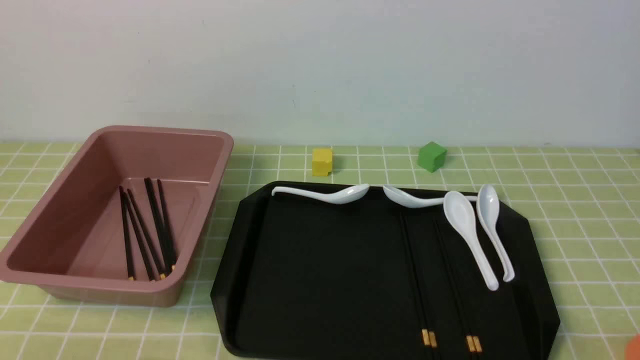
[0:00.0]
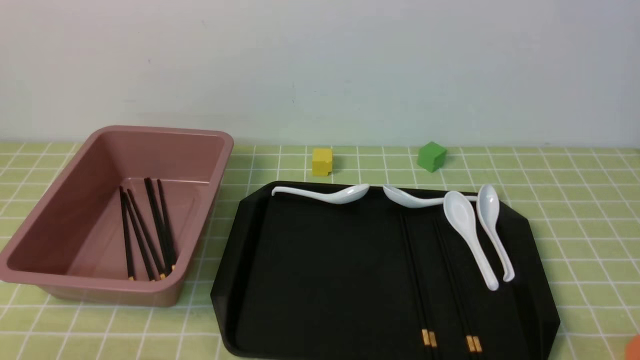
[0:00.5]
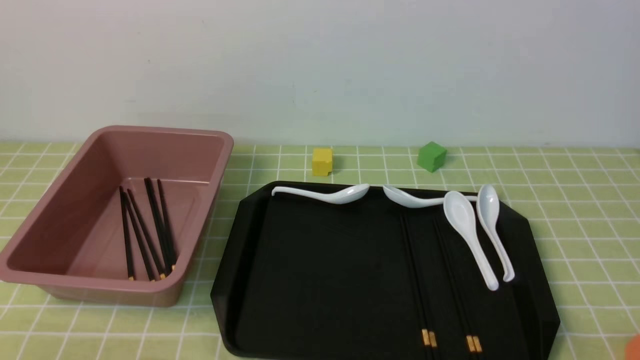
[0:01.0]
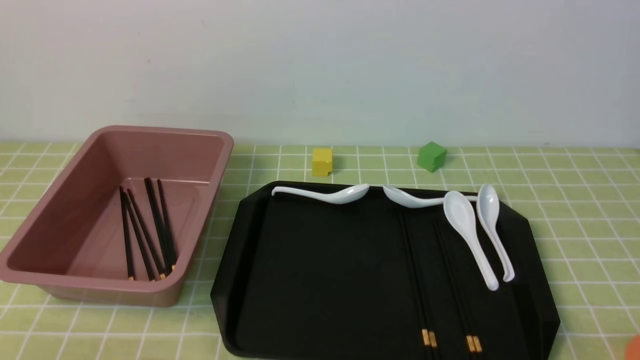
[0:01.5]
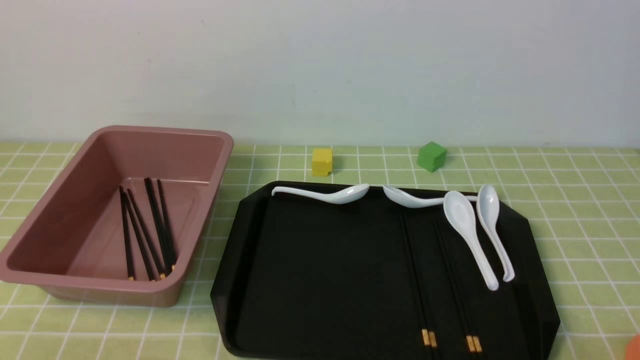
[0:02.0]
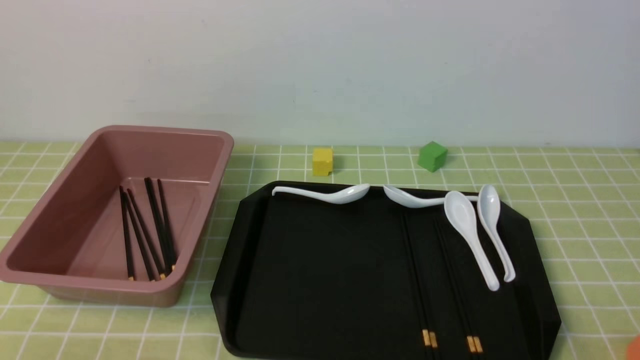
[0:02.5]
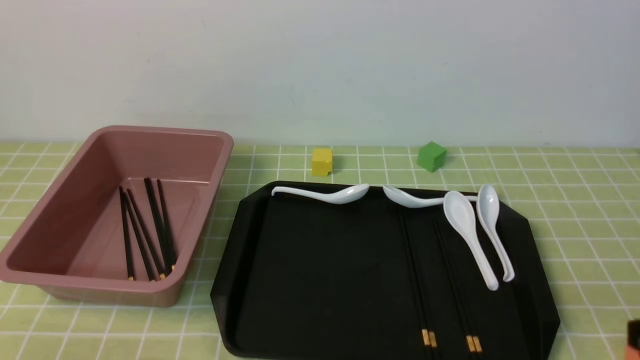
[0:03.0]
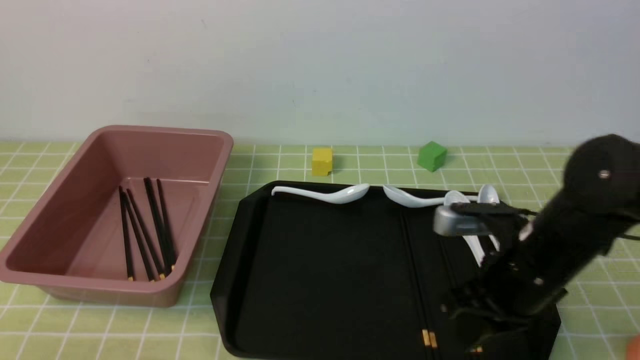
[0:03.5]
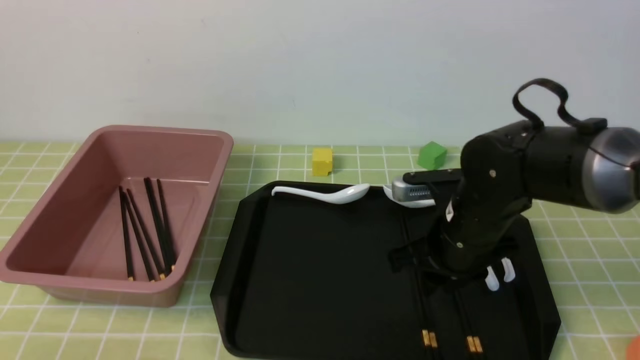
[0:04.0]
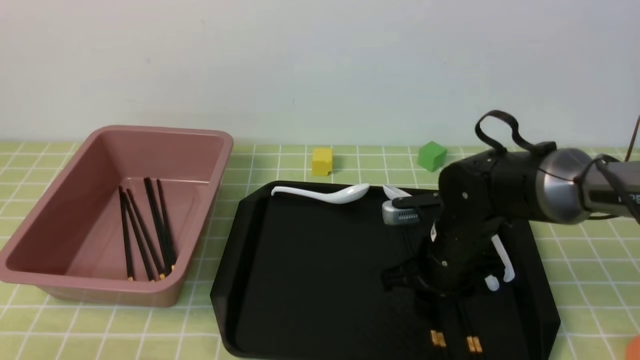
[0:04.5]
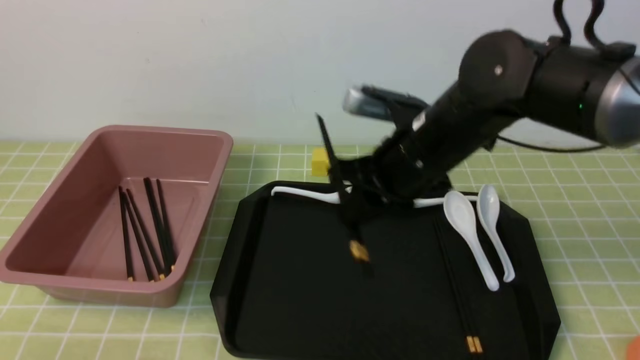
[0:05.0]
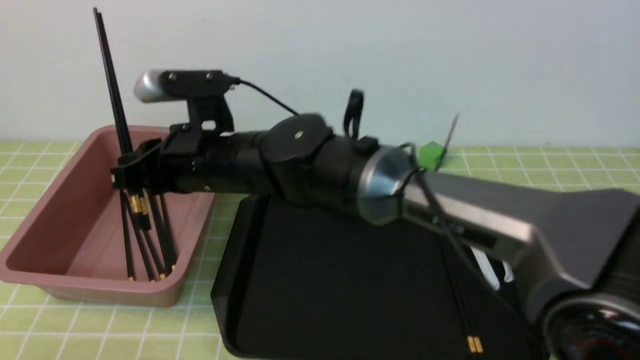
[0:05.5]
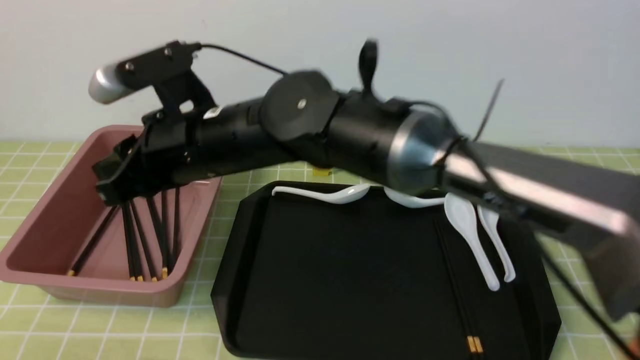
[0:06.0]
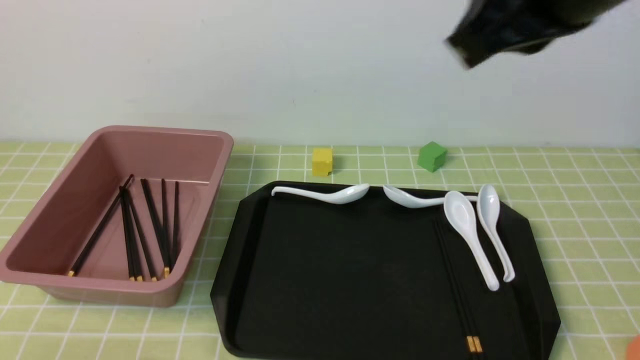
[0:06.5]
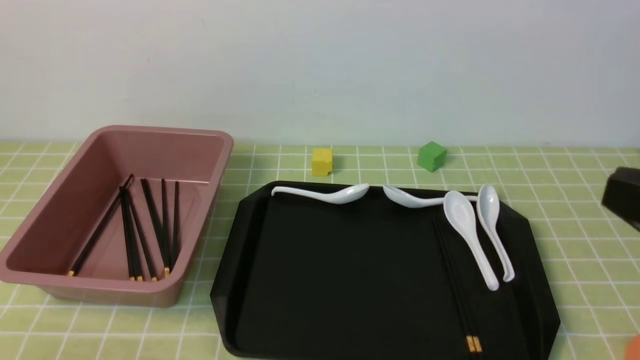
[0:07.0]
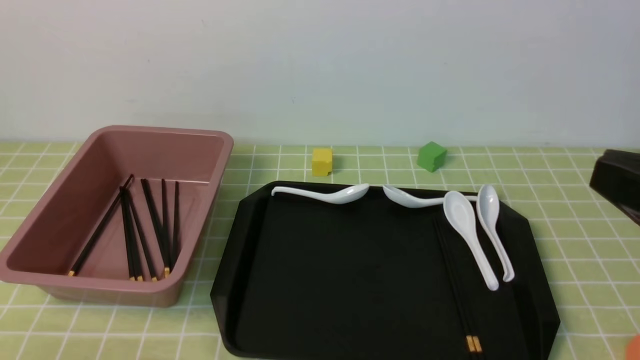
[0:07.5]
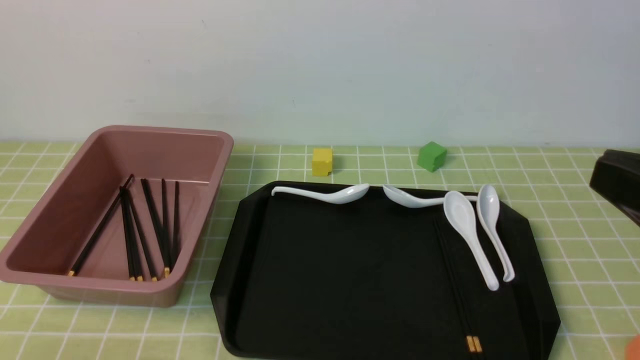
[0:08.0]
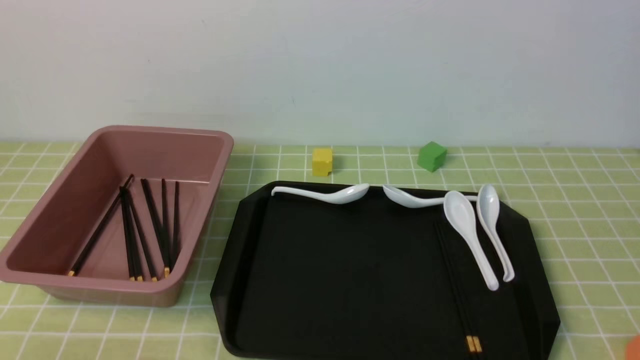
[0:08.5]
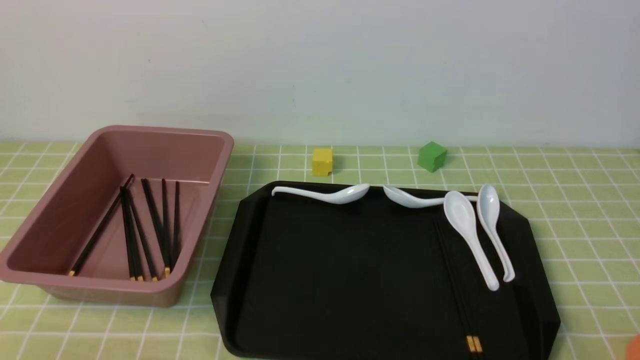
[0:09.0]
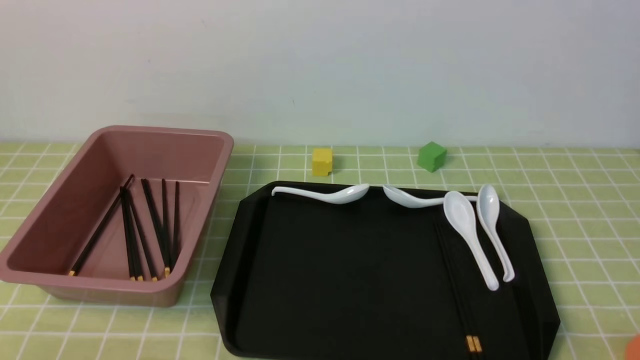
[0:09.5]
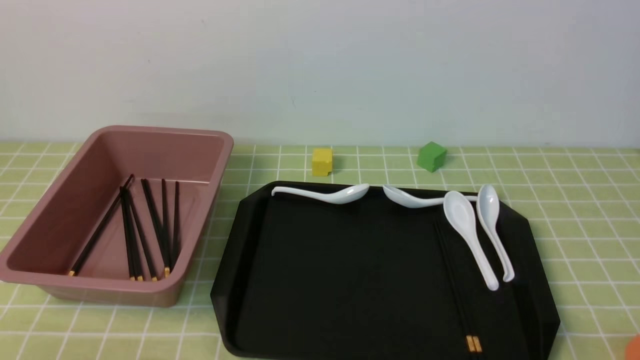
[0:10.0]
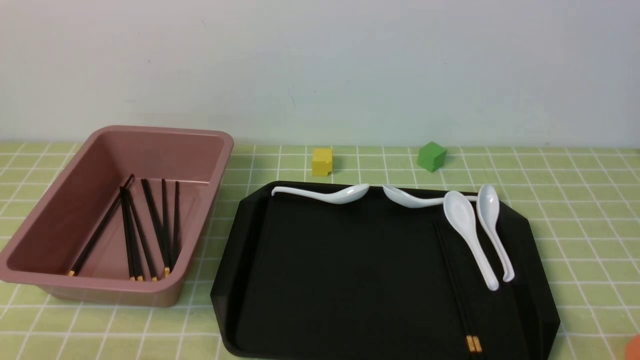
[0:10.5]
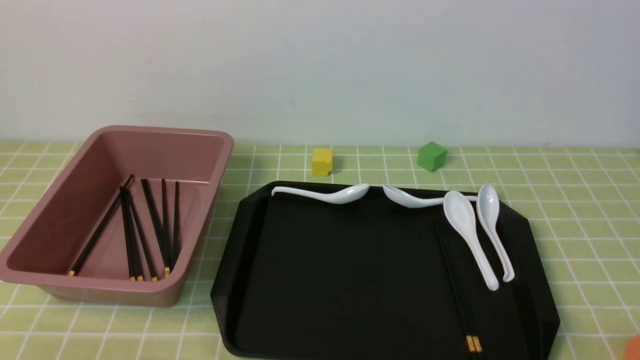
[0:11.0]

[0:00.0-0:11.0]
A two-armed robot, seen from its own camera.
Step, 0:00.0 to 0:04.5: use the right arm to grab a pair of chopsticks.
Step, 0:05.0 to 0:05.5: use the right arm to put the chopsticks into the lunch box.
0:02.0 to 0:03.5: The right gripper is displaced forward and to the left by some 20 cm, and closes up.
0:03.5 to 0:05.5: The right gripper goes roughly 30 cm to the left, and opens its fingers.
0:05.5 to 0:07.5: The right gripper travels to the right and backward by roughly 40 cm, and closes its fingers.
0:07.5 to 0:09.0: The right gripper heads downward and to the right, covering roughly 15 cm.
